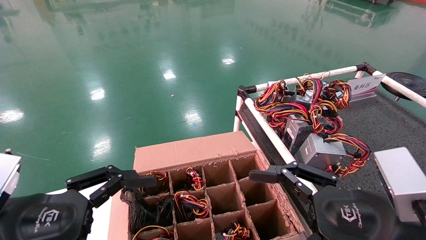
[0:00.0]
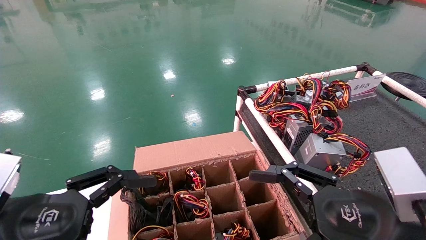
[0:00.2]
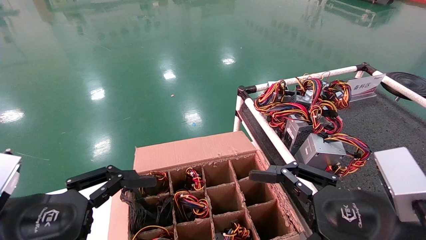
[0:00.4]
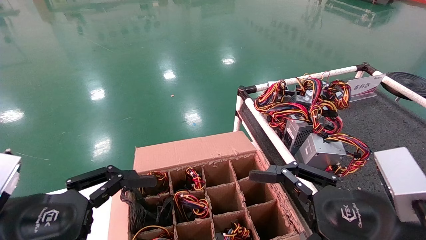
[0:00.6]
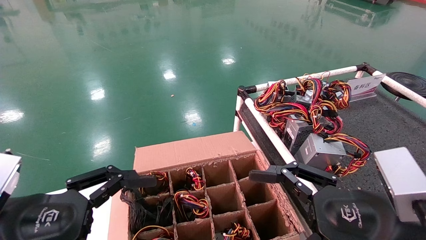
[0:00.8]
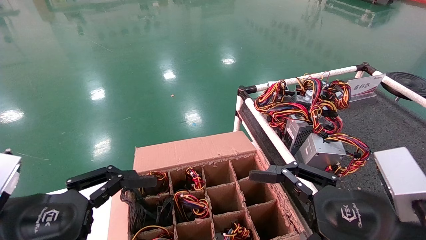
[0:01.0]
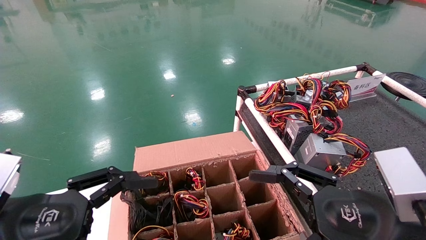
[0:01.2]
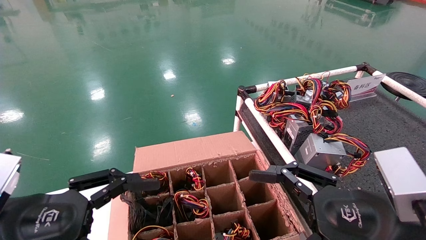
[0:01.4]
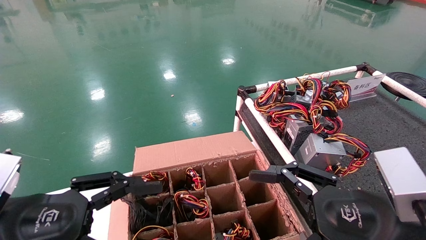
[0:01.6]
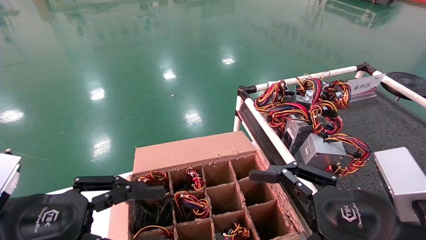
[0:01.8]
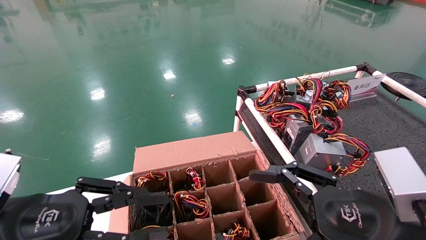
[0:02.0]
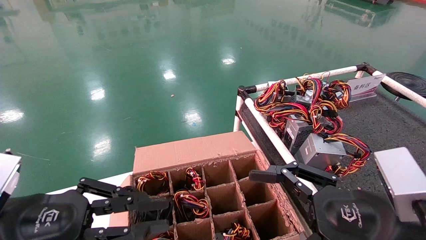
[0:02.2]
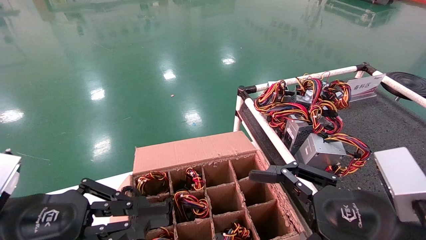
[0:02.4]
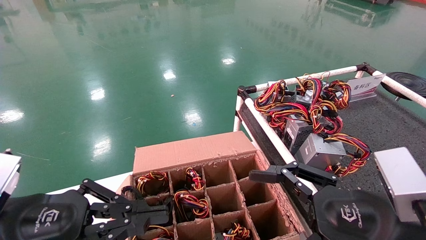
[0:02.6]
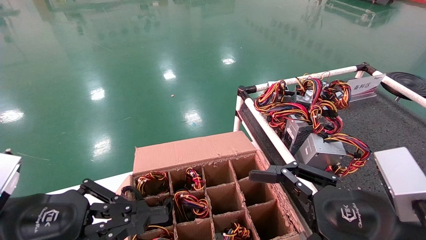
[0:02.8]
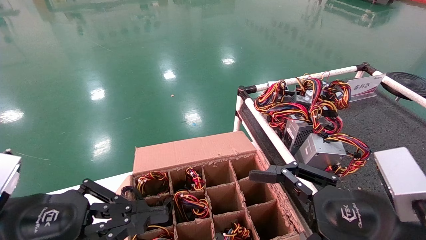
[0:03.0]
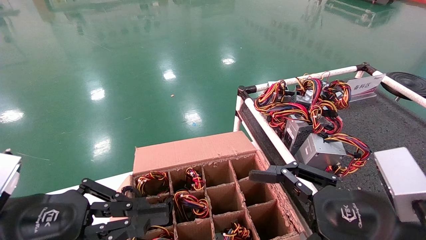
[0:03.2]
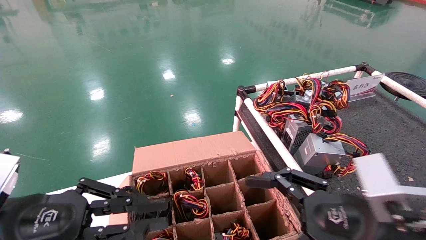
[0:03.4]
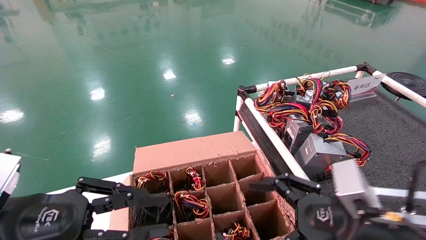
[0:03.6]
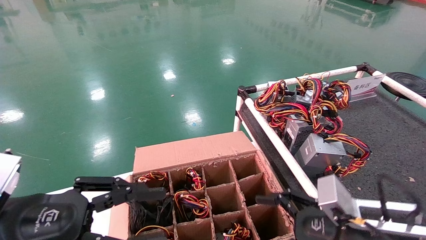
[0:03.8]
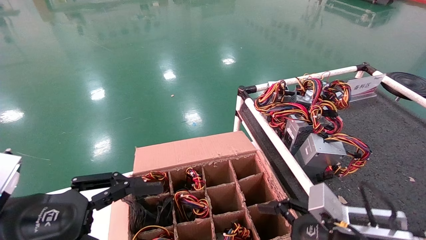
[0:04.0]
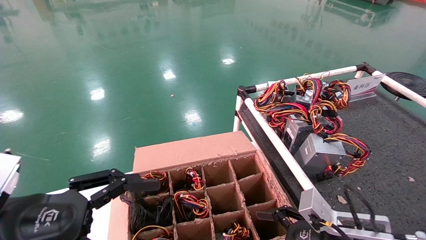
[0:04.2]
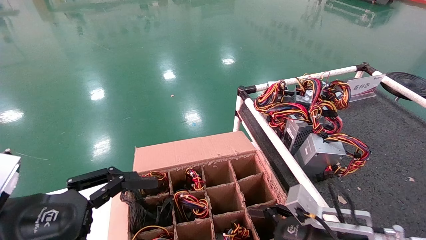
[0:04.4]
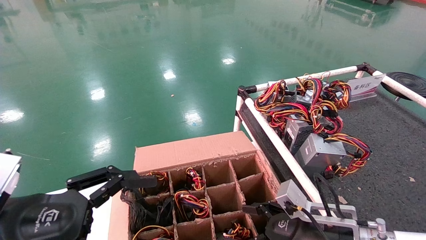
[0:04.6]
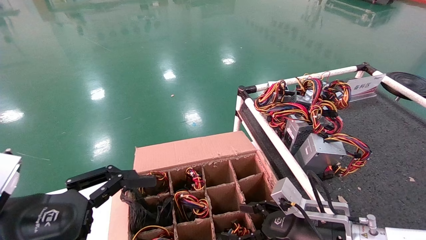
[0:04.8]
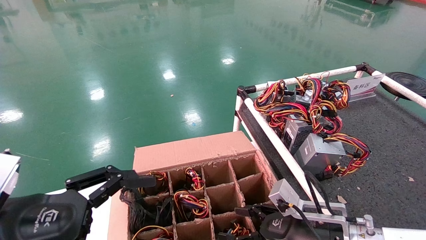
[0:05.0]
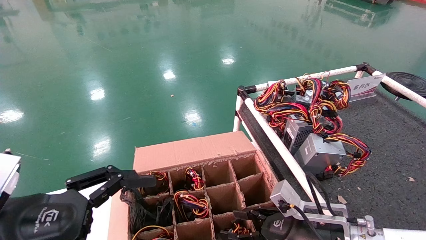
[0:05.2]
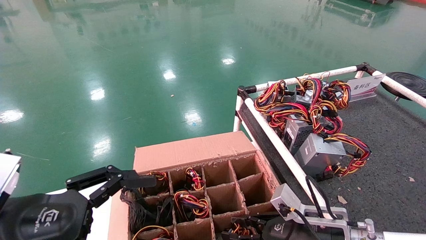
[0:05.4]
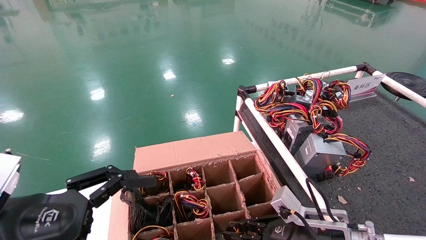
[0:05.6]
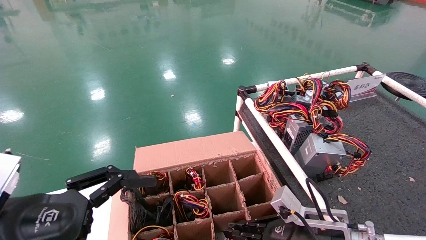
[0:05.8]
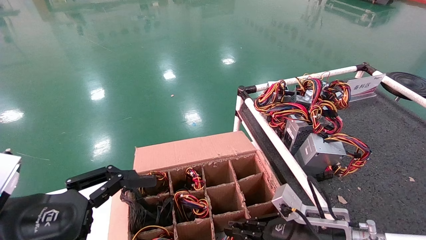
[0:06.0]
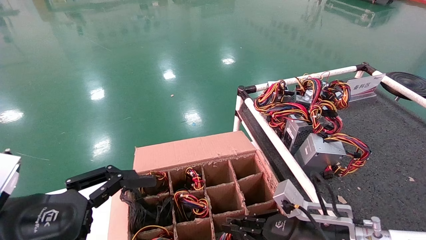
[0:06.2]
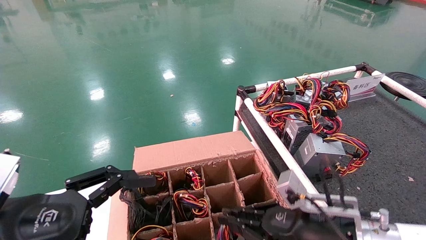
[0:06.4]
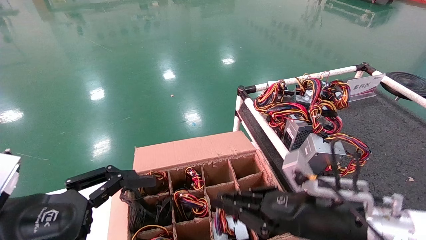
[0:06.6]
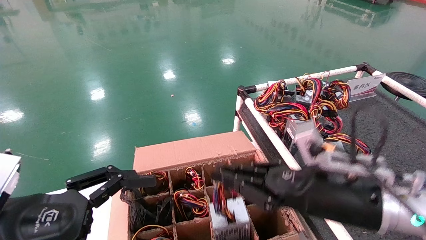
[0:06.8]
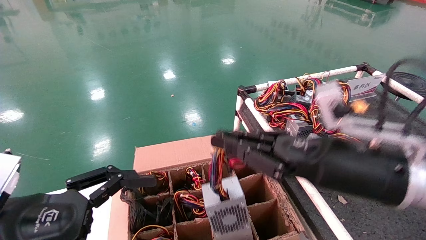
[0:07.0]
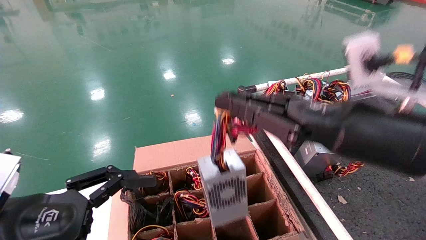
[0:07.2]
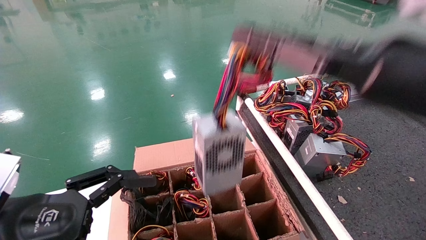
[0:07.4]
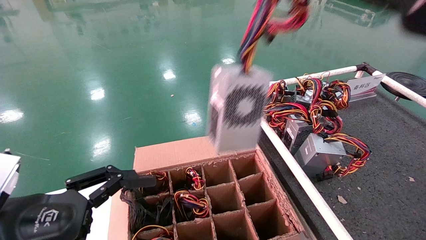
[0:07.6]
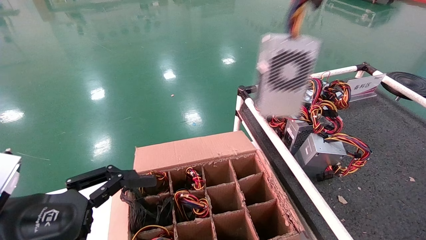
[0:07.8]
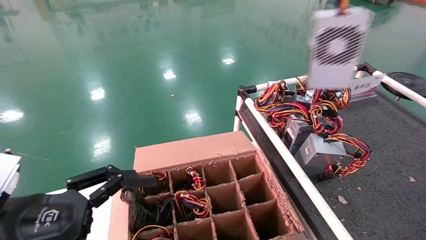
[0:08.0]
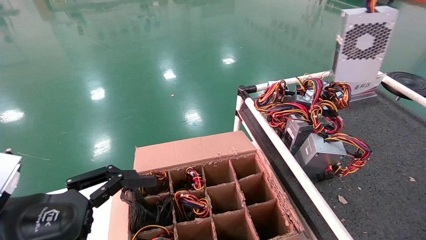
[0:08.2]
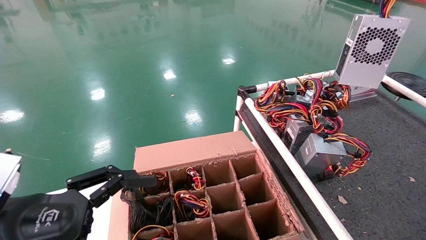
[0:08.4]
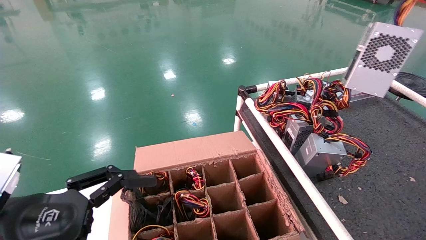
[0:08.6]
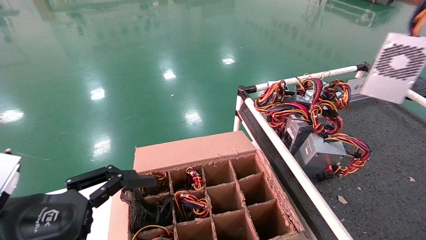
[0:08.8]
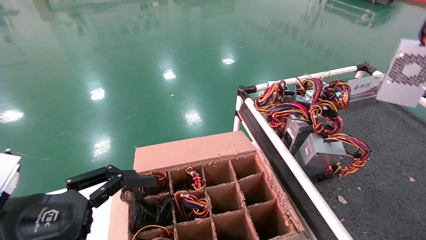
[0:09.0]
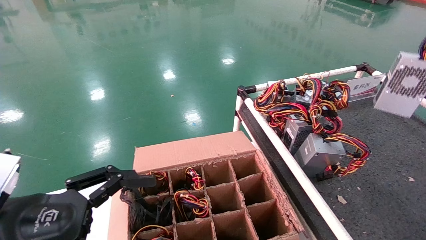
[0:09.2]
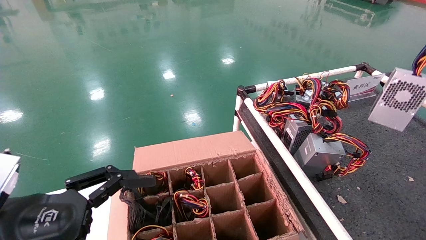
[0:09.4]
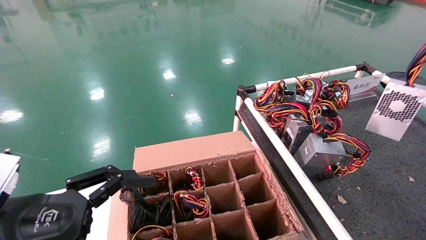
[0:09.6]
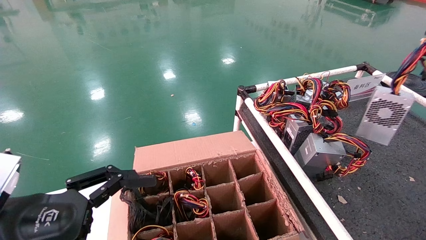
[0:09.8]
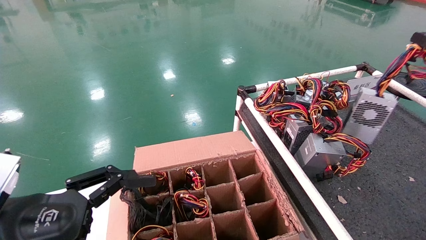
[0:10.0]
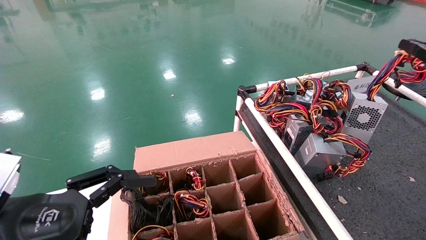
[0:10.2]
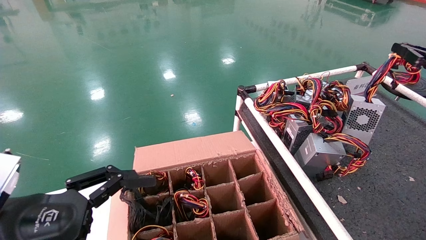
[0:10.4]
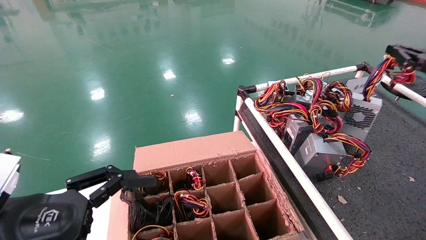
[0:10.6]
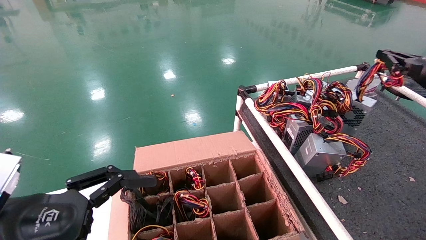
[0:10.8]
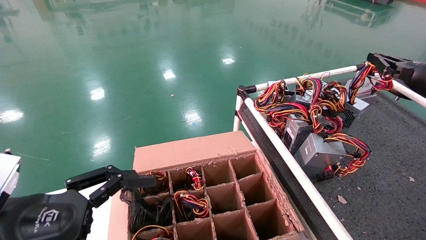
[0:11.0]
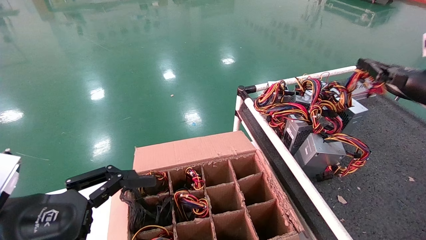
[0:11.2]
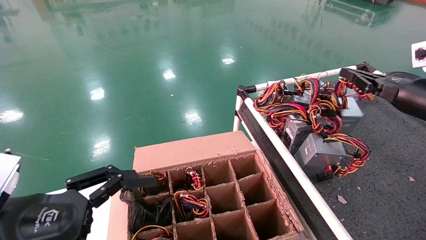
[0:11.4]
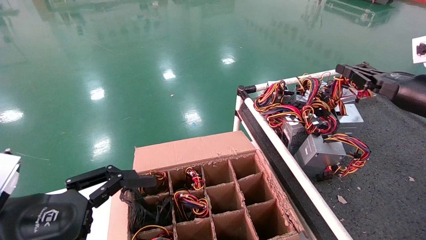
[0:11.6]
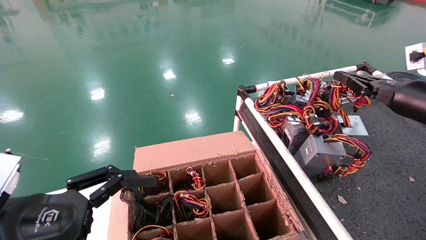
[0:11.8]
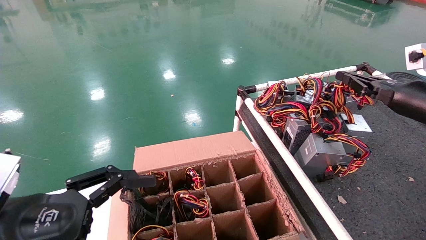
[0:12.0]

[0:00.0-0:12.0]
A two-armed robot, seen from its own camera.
Step, 0:03.8 to 0:06.2: Grab and lift the power supply from the large box.
0:00.0 to 0:01.6: Neither gripper changes place.
0:01.6 to 0:03.0: The left gripper closes up.
0:03.0 to 0:04.4: The right gripper travels downward and forward by about 15 cm. Meanwhile the left gripper opens.
0:04.4 to 0:06.0: The right gripper closes up.
0:06.0 to 0:07.6: The right gripper heads upward, covering some 35 cm.
0:07.6 to 0:09.0: The right gripper heads to the right, covering about 25 cm.
0:09.0 to 0:10.4: The right gripper travels forward and downward by approximately 15 cm.
0:10.4 to 0:12.0: The right gripper shifts about 5 cm to the left.

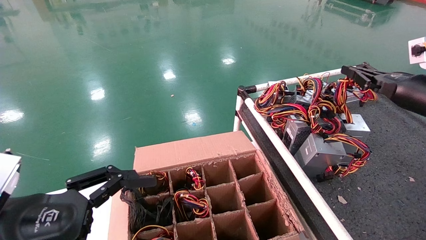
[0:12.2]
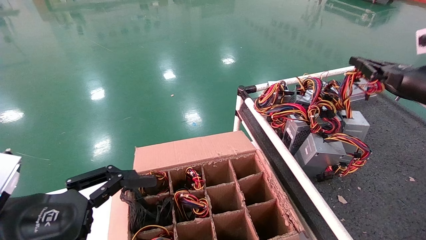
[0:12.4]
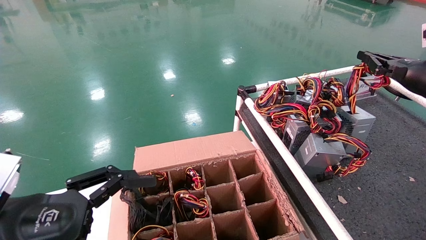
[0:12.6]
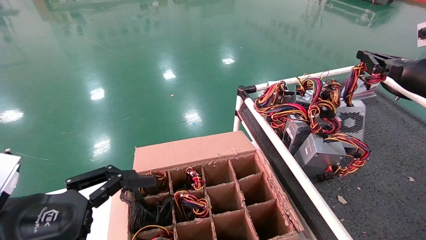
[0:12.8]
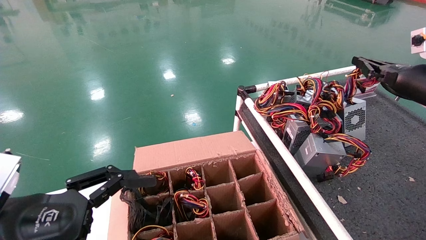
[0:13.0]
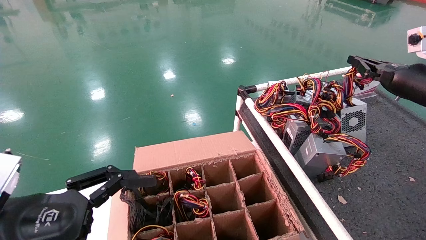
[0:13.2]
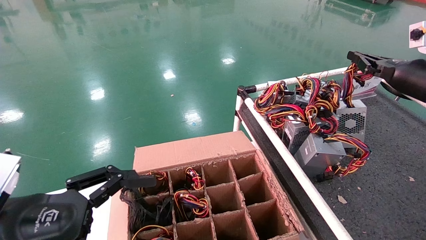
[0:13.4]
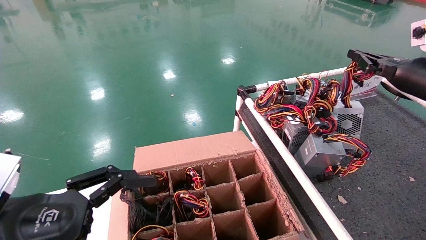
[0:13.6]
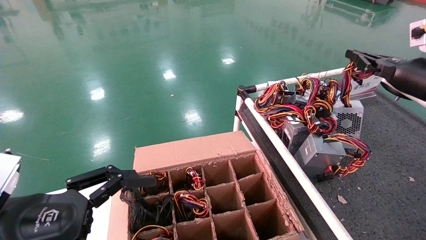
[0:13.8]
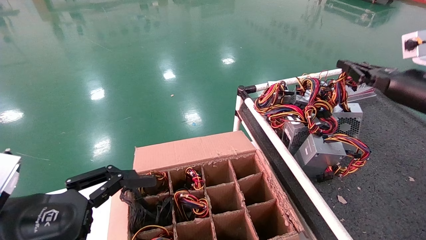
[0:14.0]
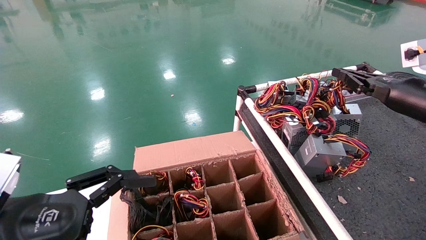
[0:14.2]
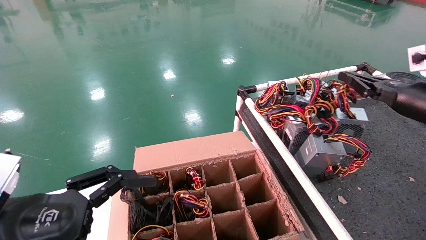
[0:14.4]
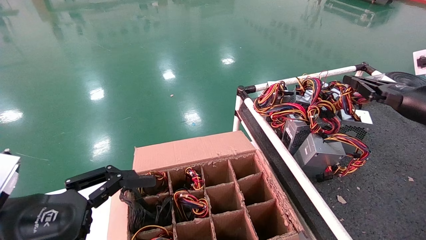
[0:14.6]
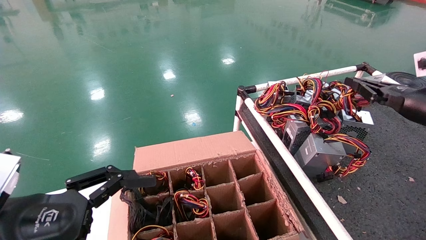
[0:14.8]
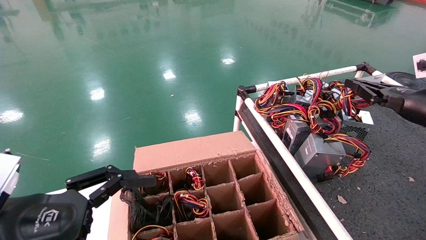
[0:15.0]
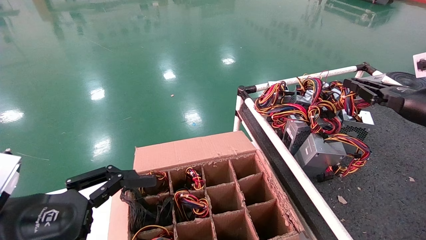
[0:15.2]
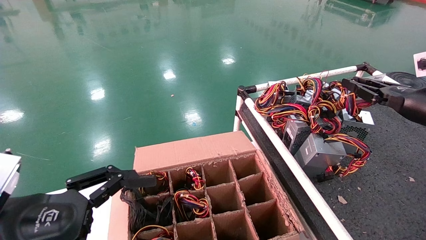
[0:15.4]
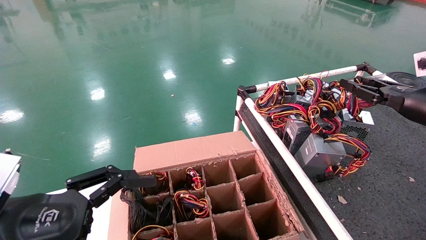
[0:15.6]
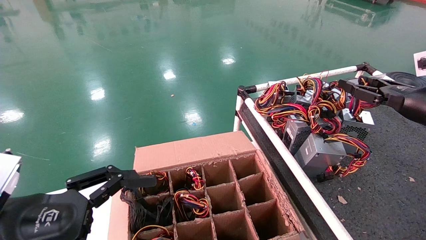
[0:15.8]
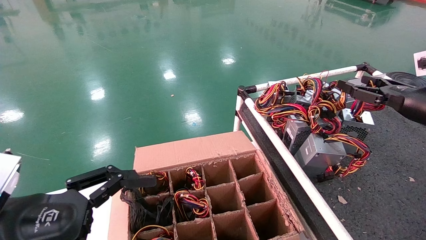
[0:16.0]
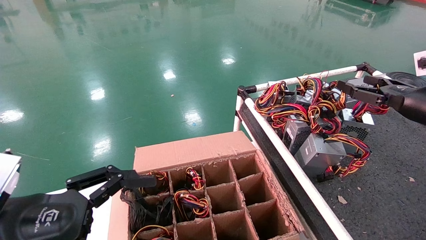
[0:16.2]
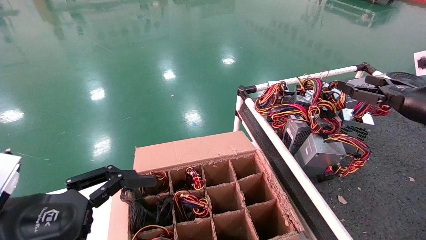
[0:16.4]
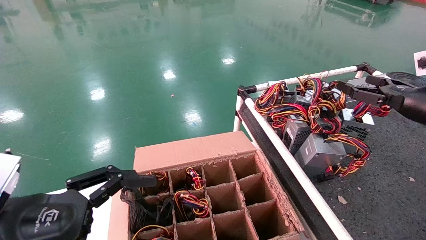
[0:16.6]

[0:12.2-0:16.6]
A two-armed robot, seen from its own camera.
Step, 0:12.2 to 0:15.4: Place the power supply on the operating table.
0:12.2 to 0:13.6: The grippers move only a little.
0:13.6 to 0:15.2: The right gripper moves downward, about 5 cm.
0:15.2 to 0:16.6: The right gripper opens its fingers.
